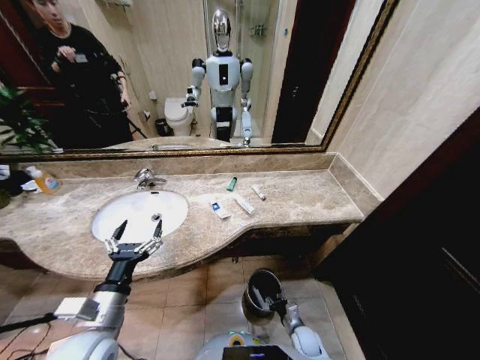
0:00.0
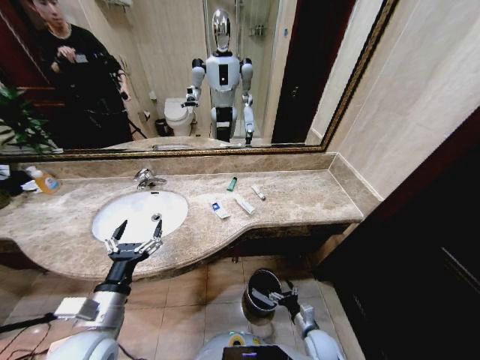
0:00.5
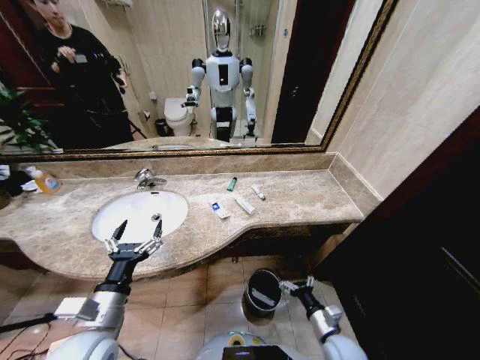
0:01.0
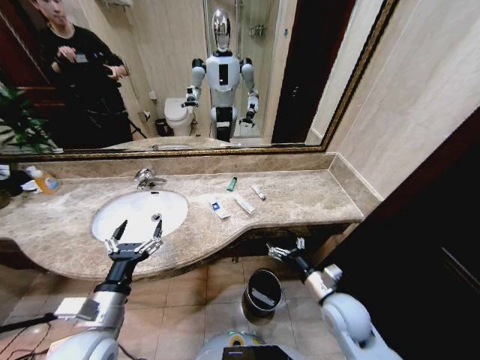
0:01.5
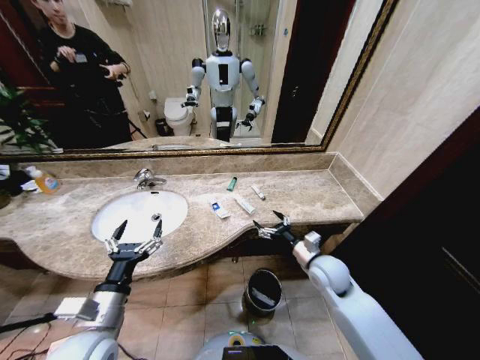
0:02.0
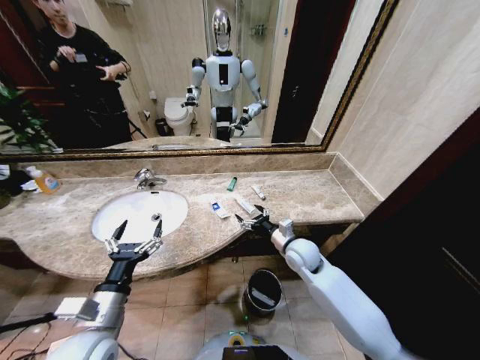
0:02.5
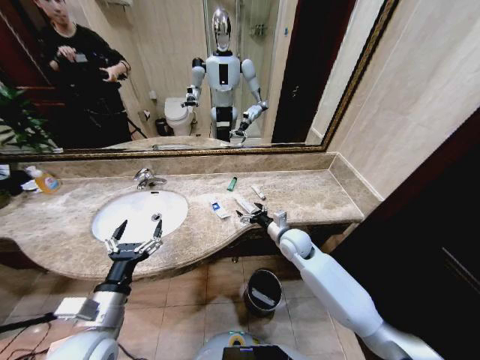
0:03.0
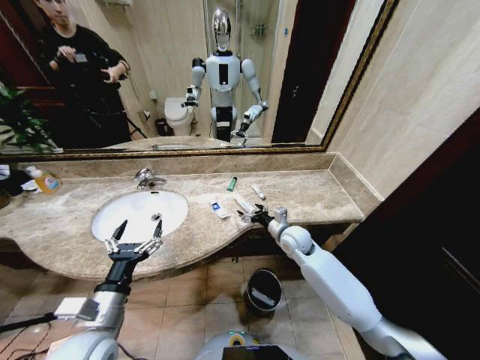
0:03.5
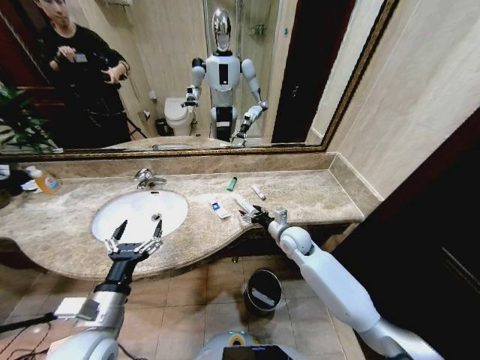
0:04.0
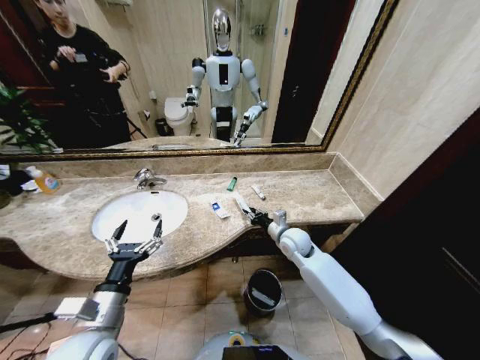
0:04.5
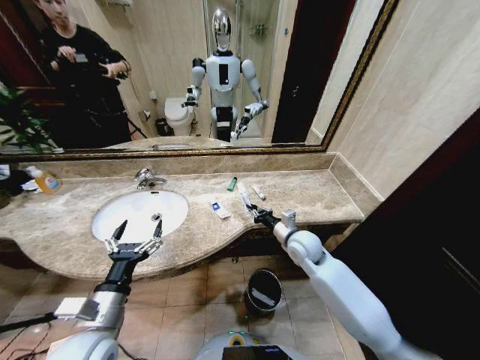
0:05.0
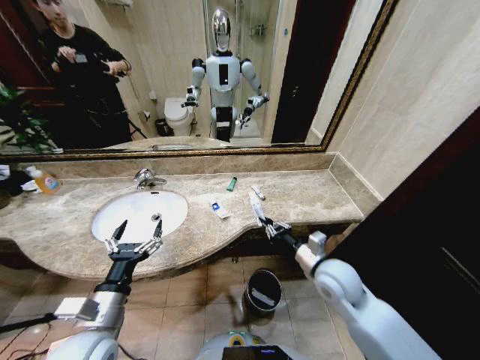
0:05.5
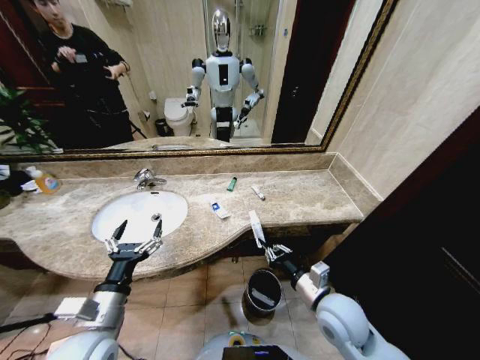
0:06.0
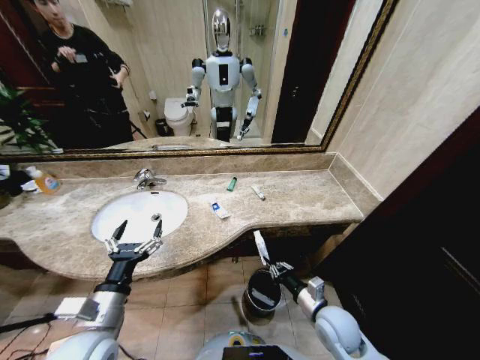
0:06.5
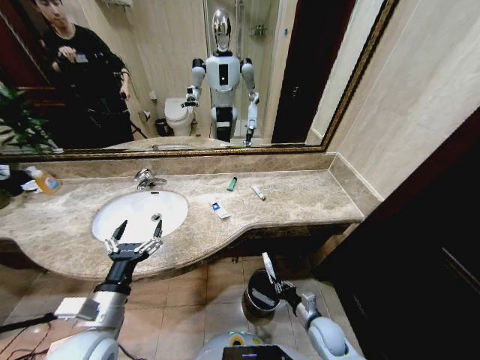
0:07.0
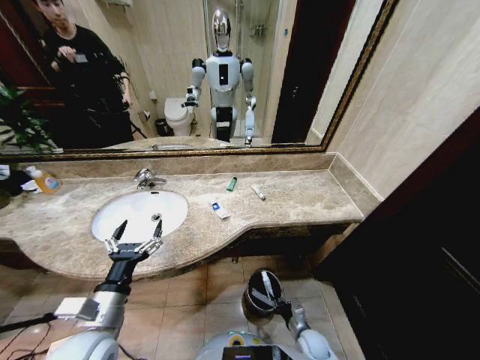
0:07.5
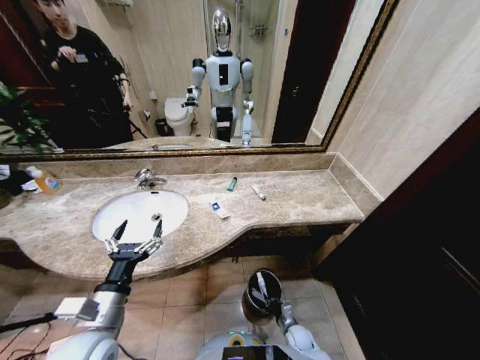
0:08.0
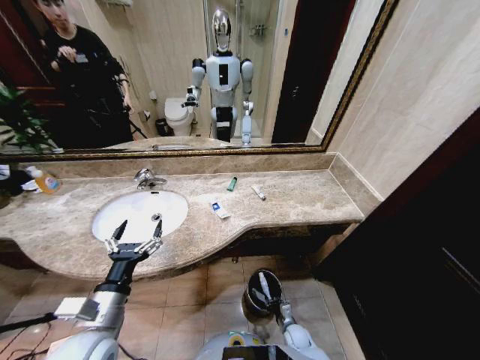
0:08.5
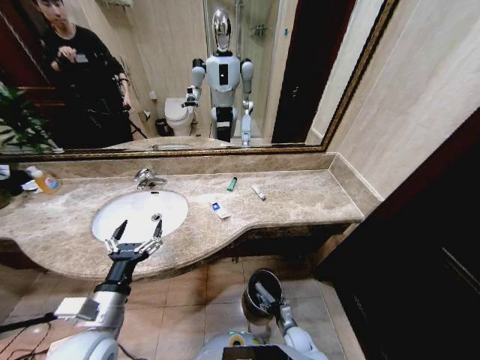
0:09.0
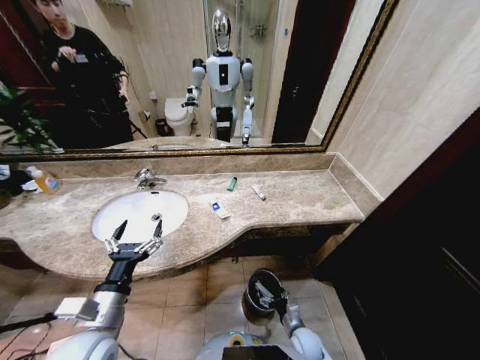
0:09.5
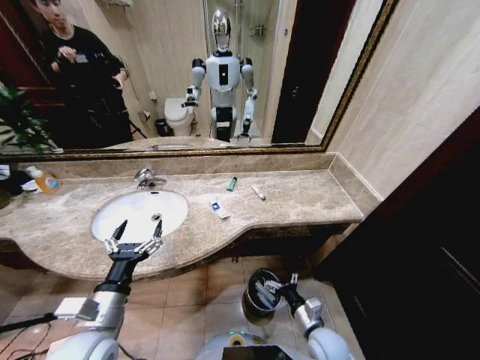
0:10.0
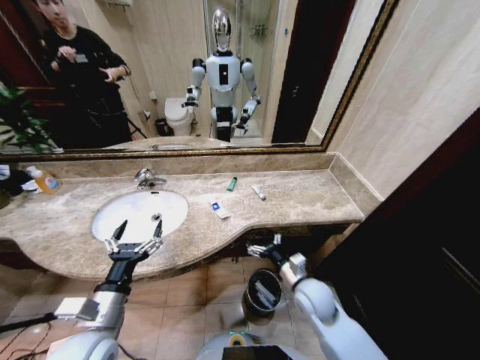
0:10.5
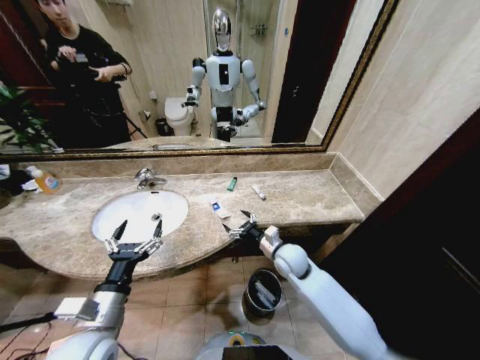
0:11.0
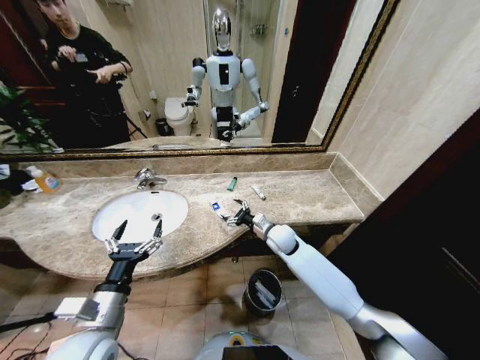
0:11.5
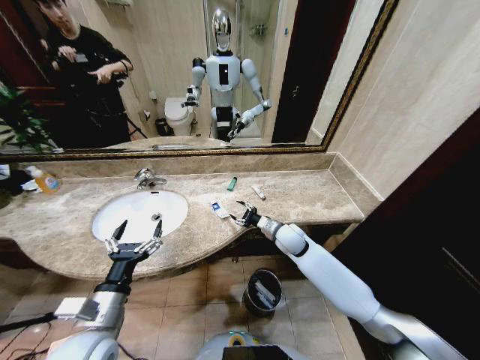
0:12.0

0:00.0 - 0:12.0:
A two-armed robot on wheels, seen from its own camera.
Task of the whole recording: Pick up the trash from the sink and place it in the trash bin.
0:00.0 - 0:02.0: The right gripper is displaced upward by some 30 cm, and opens.
0:02.0 - 0:04.0: The right gripper travels forward and to the left by some 15 cm.
0:04.0 - 0:06.0: The right gripper is displaced backward by approximately 20 cm, and closes.
0:06.0 - 0:08.0: The right gripper heads downward, covering about 35 cm.
0:08.0 - 0:10.0: The right gripper heads upward, covering about 20 cm, and opens up.
0:10.0 - 0:12.0: The right gripper travels forward and upward by about 30 cm, and closes its fingers.

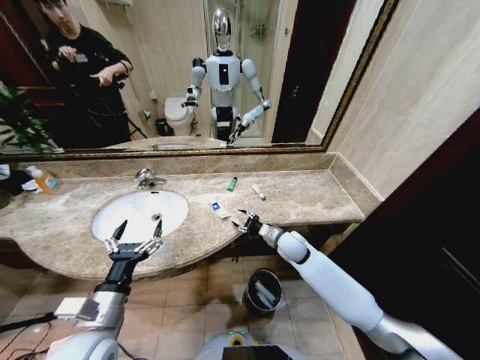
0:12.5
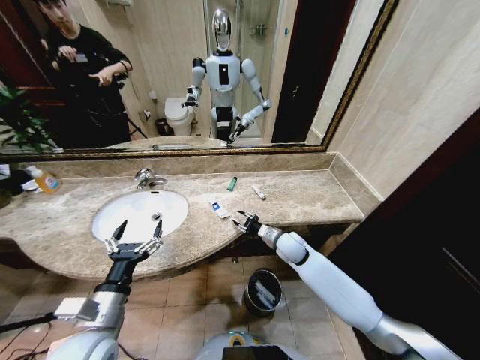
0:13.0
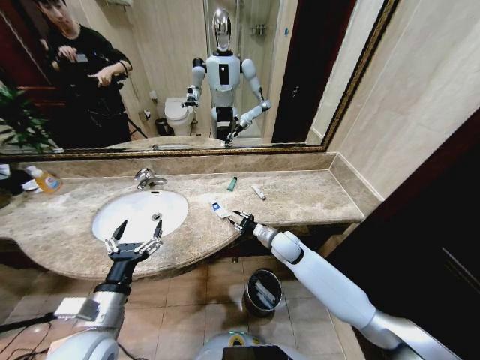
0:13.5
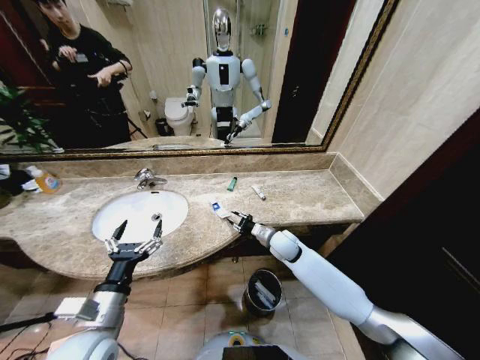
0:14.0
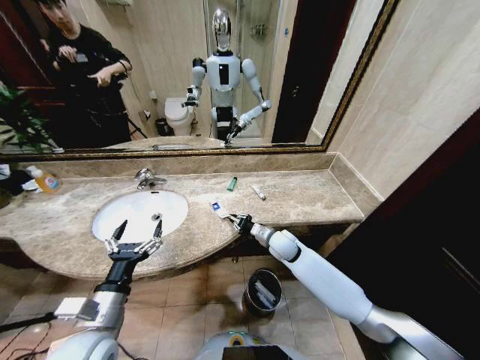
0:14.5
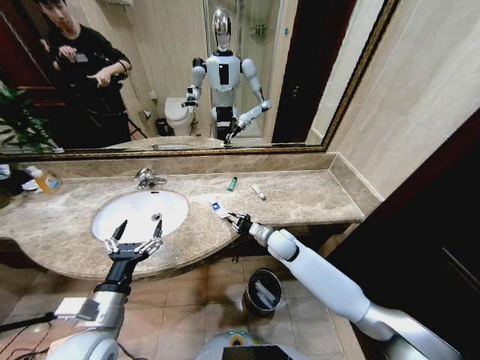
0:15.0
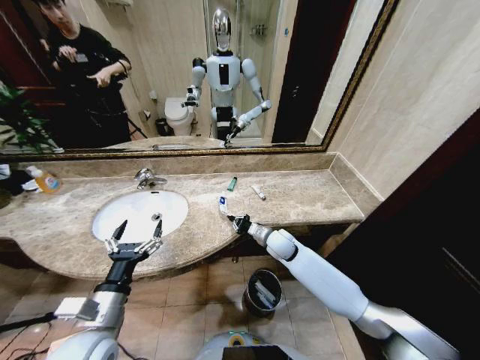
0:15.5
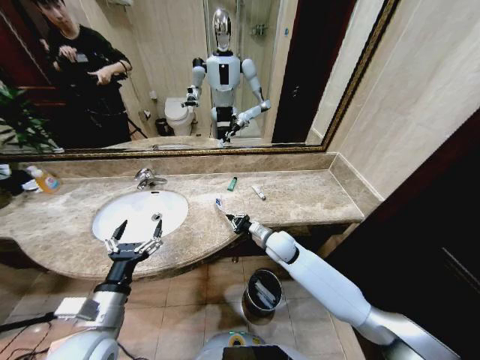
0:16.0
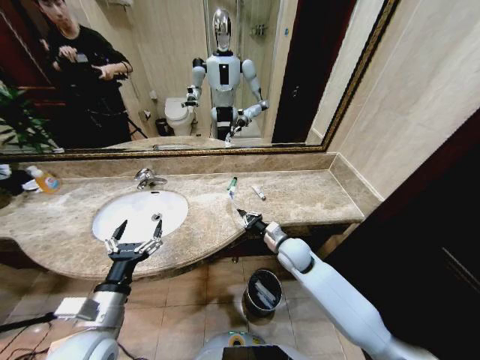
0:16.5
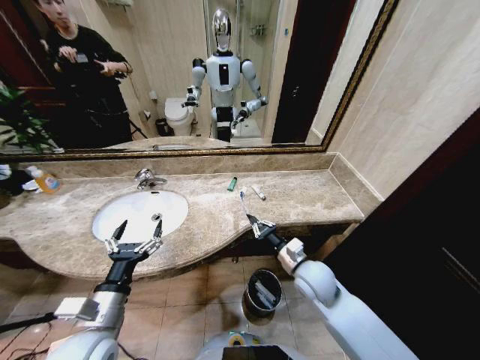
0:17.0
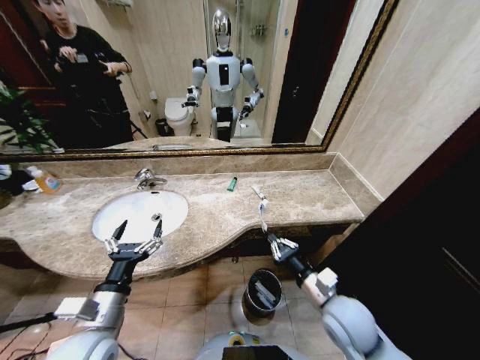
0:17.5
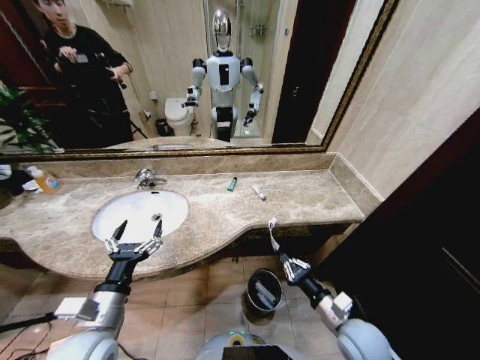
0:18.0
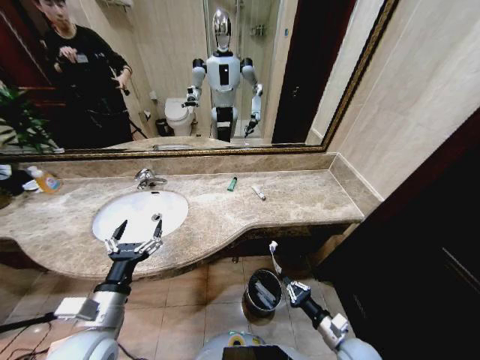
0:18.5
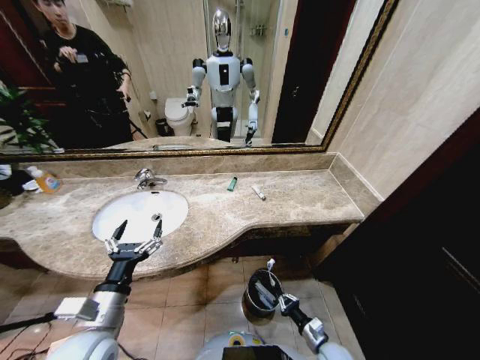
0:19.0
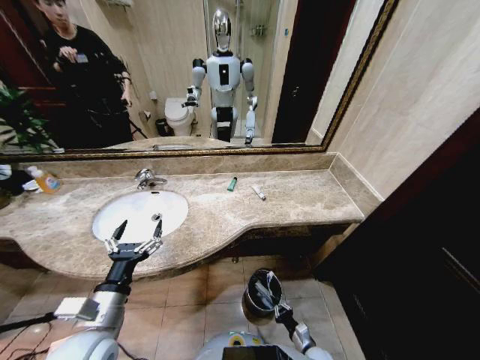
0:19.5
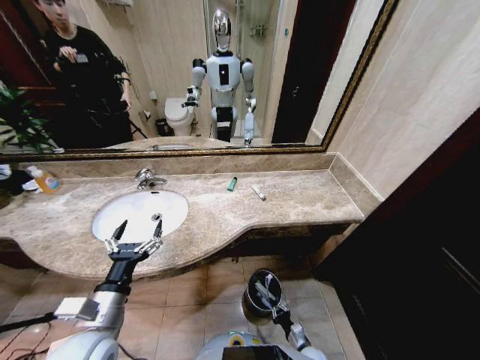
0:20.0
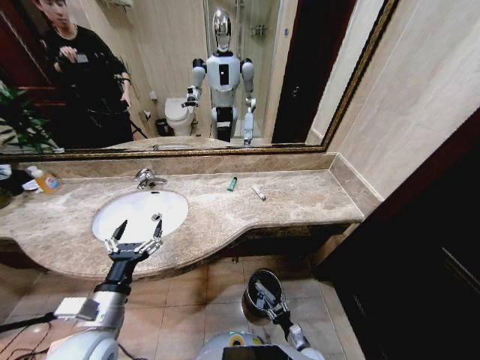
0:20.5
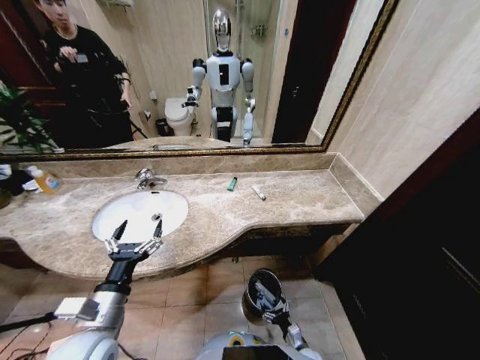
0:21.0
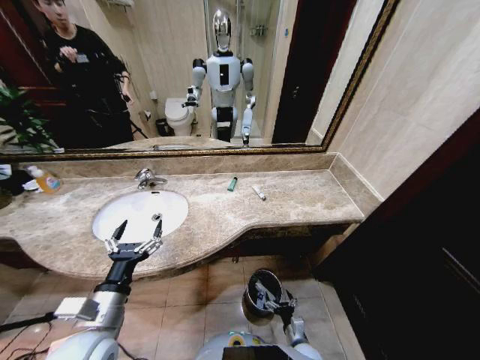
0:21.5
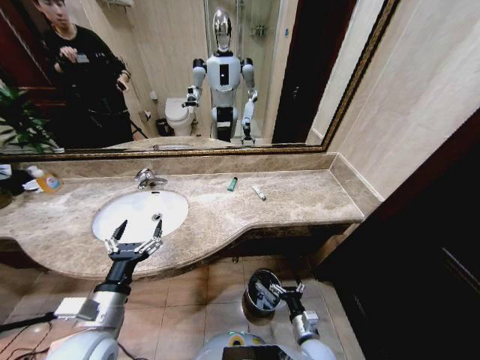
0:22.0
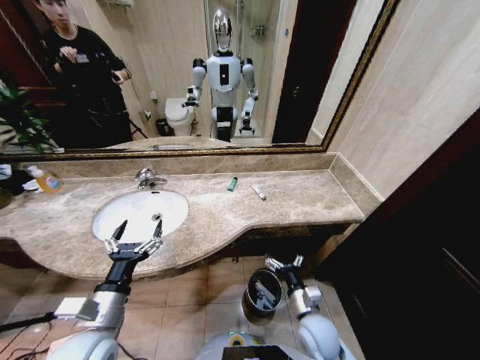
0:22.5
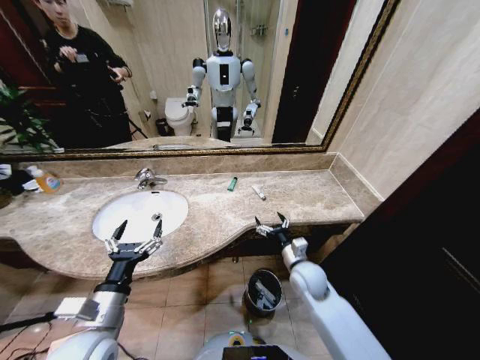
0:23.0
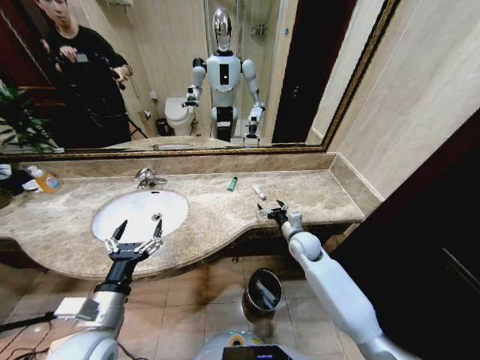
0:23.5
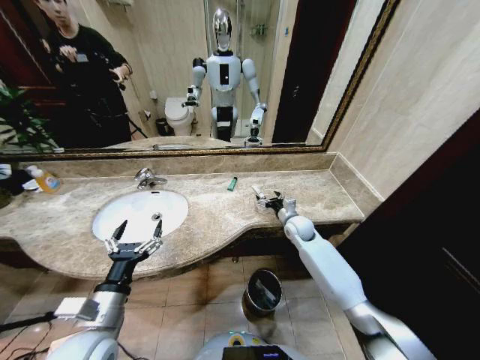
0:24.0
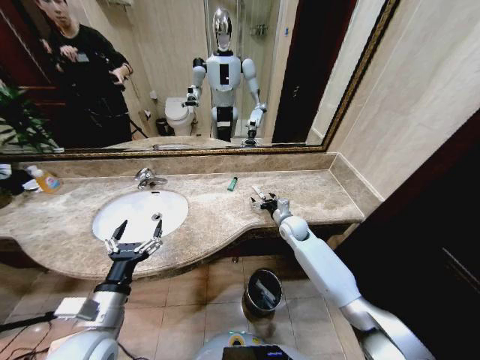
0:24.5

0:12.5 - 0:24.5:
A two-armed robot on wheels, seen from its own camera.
Task of the whole recording: Pick up the trash from the sink and place it in the trash bin.
0:12.5 - 0:14.5: The right gripper closes.
0:16.5 - 0:18.5: The right gripper travels backward, downward and to the right by roughly 30 cm.
0:18.5 - 0:20.5: The right gripper moves downward, about 20 cm, and opens.
0:20.5 - 0:22.5: The right gripper moves upward, approximately 25 cm, and opens up.
0:22.5 - 0:24.5: The right gripper shifts some 30 cm forward.

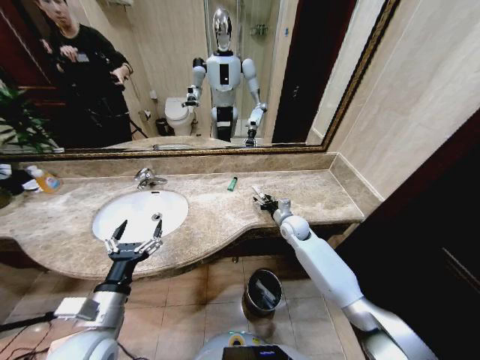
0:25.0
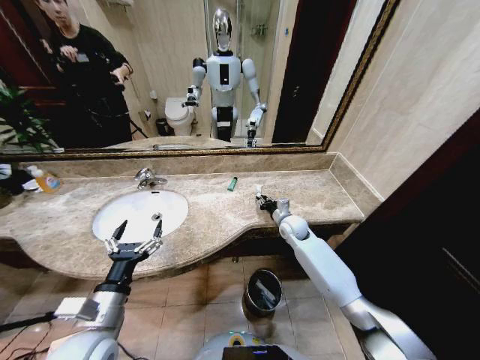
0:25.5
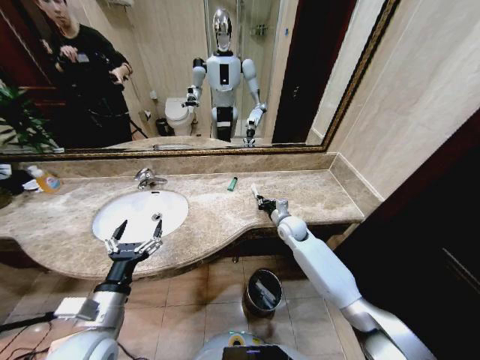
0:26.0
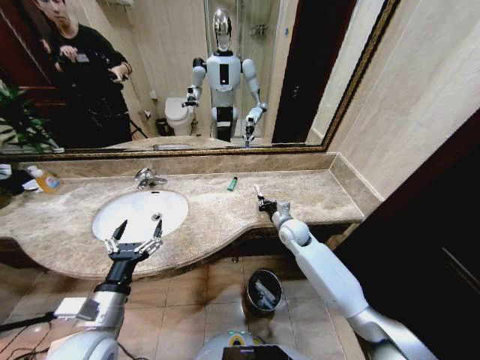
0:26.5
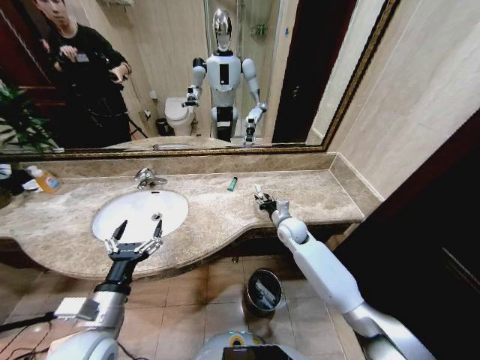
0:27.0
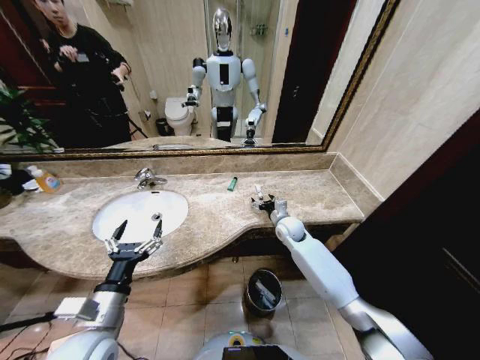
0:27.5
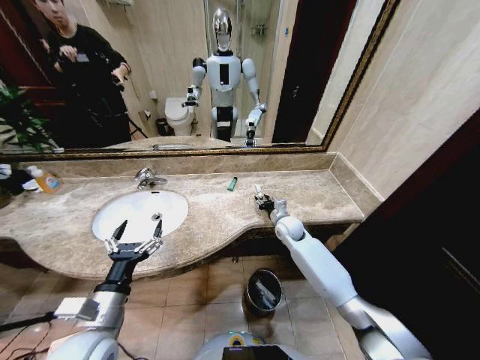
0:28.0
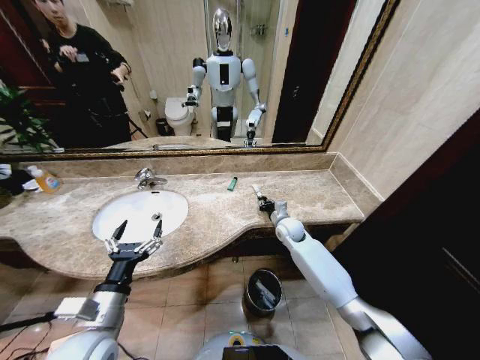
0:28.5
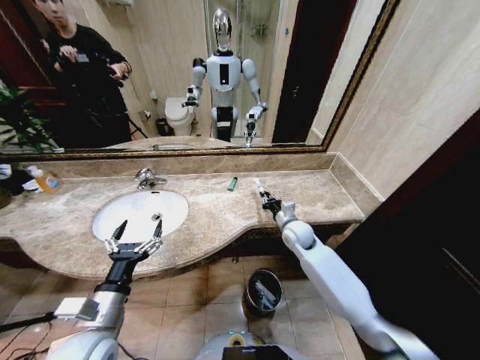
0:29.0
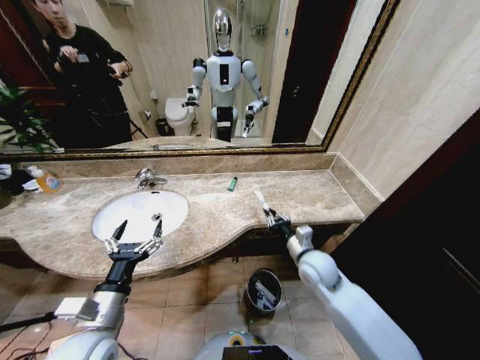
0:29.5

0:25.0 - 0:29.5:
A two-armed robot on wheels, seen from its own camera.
Task of the whole recording: Pick up the trash from the sink and place it in the trash bin.
0:25.0 - 0:27.0: The right gripper closes, then reopens.
0:27.0 - 0:29.5: The right gripper shifts approximately 15 cm backward, and opens, then closes again.
